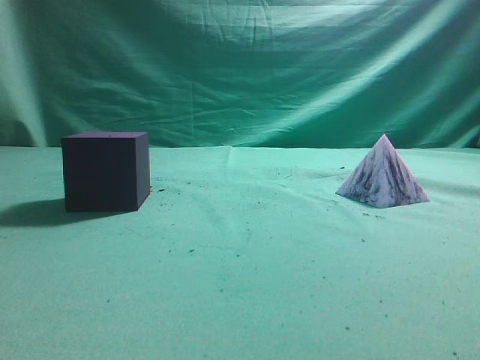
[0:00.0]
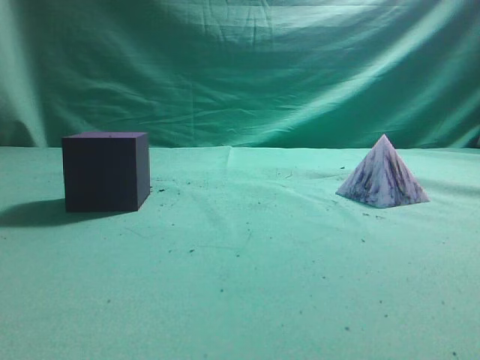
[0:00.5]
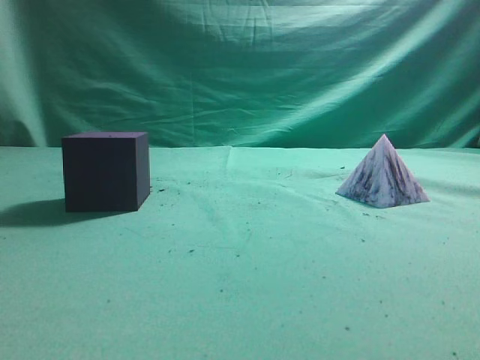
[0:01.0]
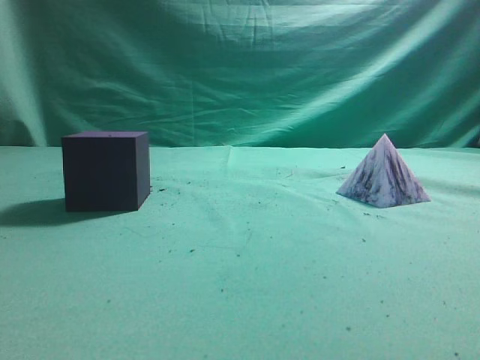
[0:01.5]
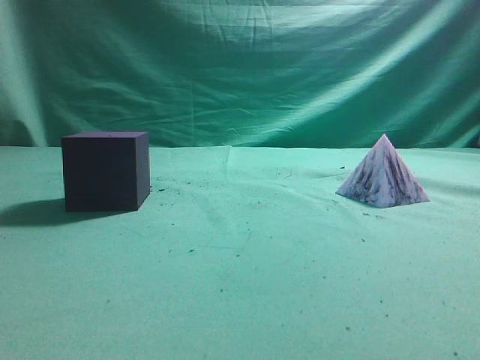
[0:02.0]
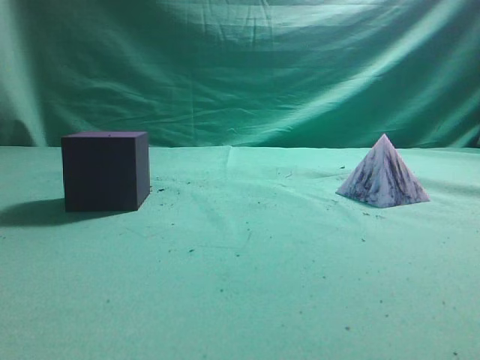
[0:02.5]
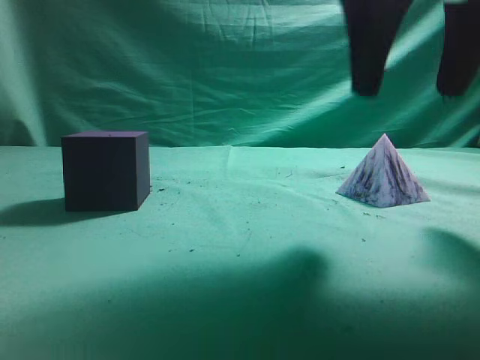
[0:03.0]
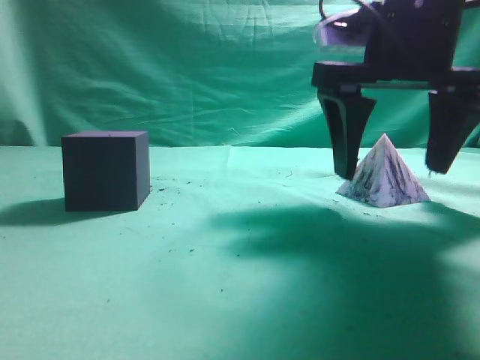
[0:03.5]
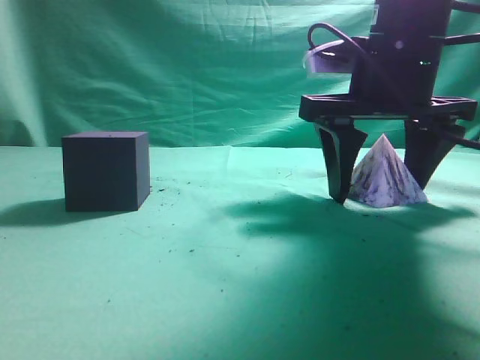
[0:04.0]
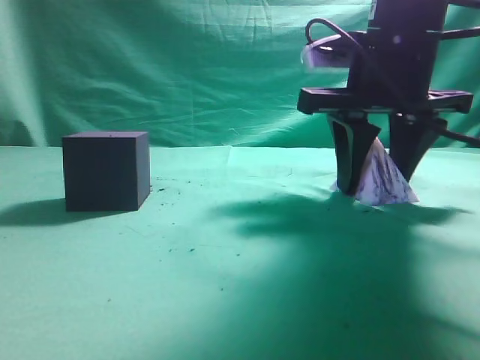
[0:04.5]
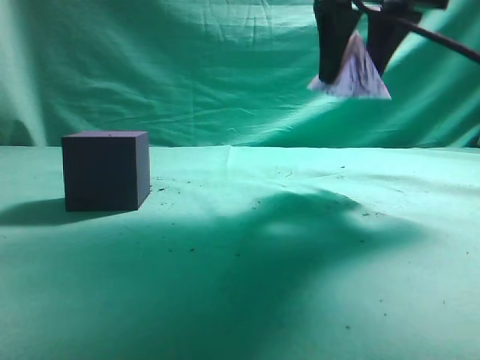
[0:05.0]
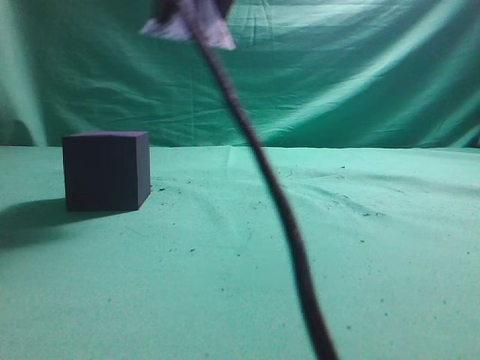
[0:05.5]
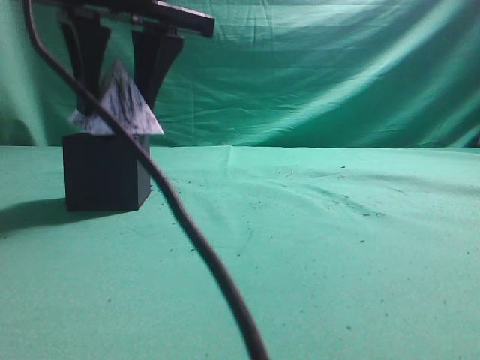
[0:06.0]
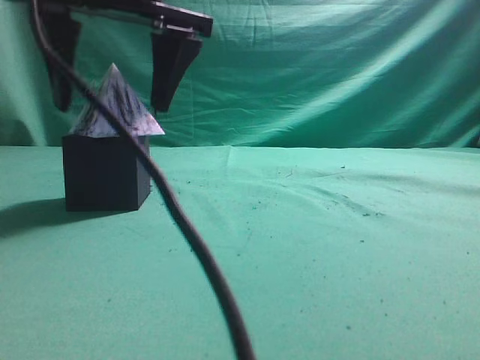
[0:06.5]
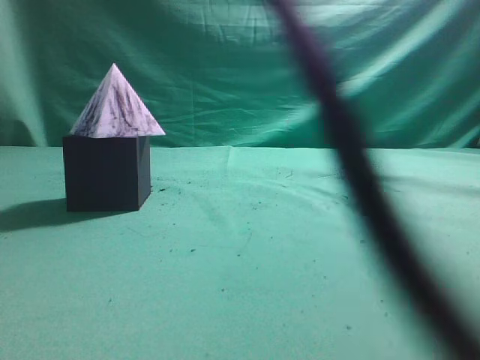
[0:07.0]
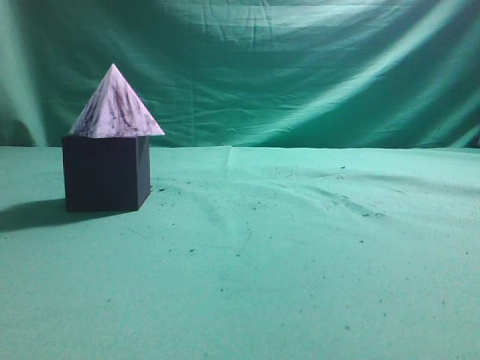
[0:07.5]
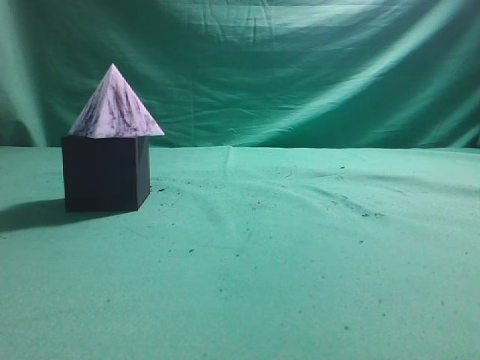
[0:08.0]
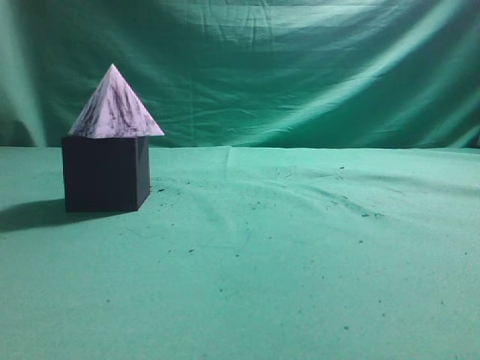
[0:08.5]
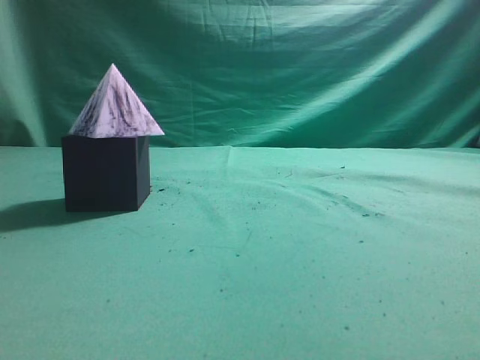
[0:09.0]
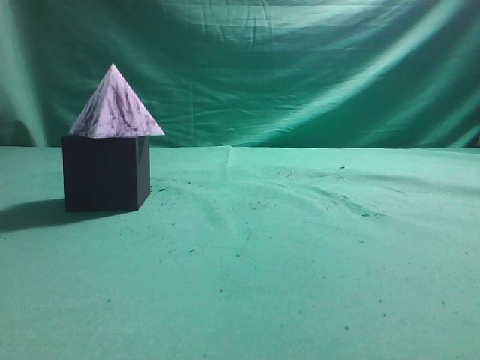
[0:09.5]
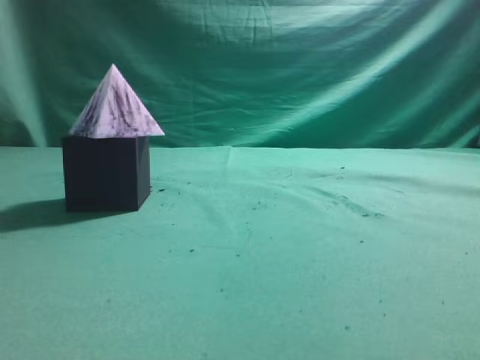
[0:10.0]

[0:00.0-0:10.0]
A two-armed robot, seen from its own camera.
Task of the whole recording: pick up the square pyramid from the table and place it on the cube block.
Step, 0:00.0 to 0:04.5: Grasp the triangular block.
Step, 0:05.0 to 0:06.5: Place the block onto the cube-shaped block.
0:02.0 to 0:04.0: The right gripper heads forward, to the left and downward, covering roughly 35 cm, and opens up.
0:04.0 to 0:06.0: The right gripper is displaced to the left and upward by roughly 20 cm, and closes.
0:06.0 to 0:08.0: The right gripper heads to the right, backward and upward, covering roughly 40 cm, and closes its fingers.
